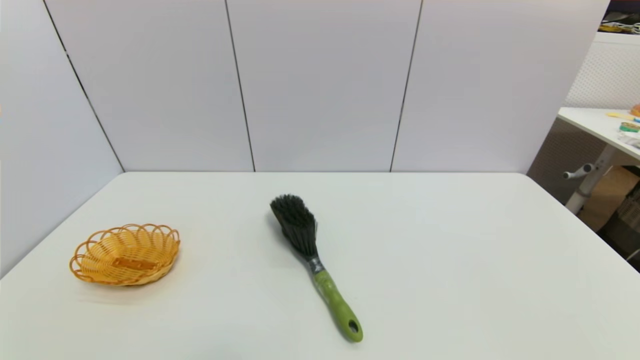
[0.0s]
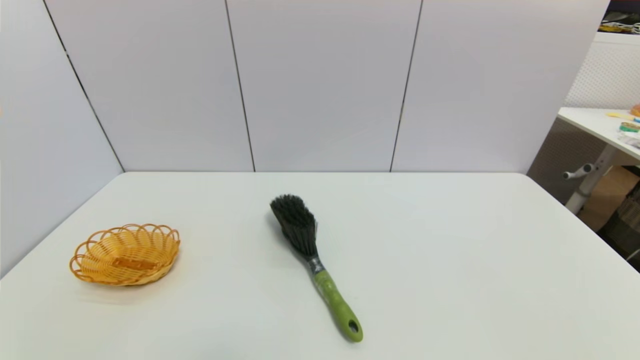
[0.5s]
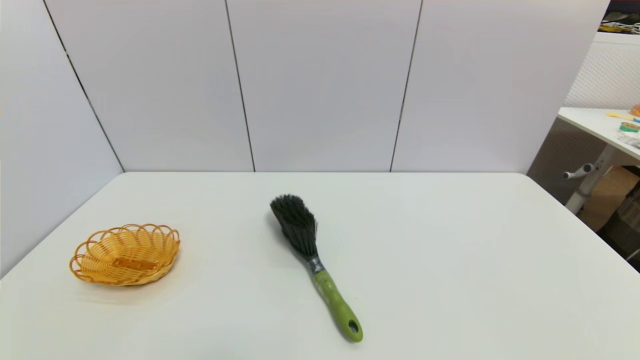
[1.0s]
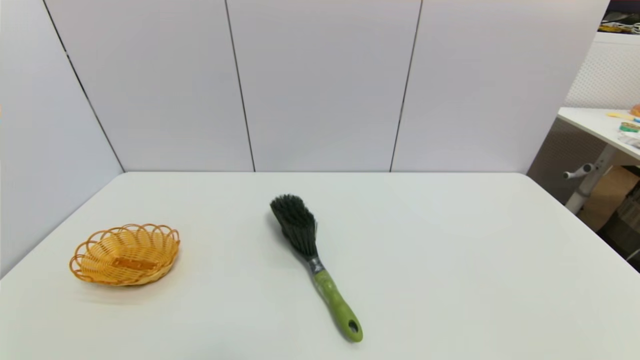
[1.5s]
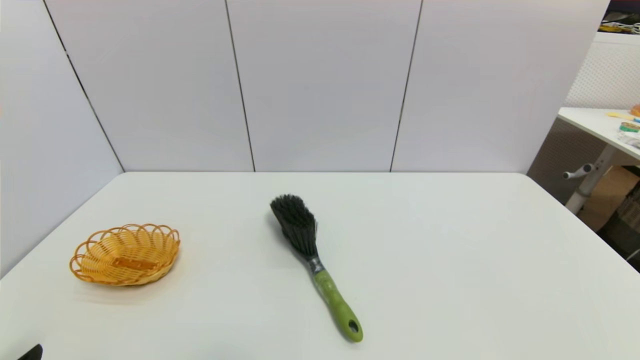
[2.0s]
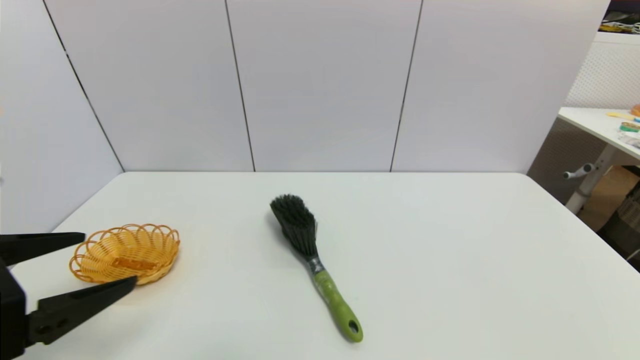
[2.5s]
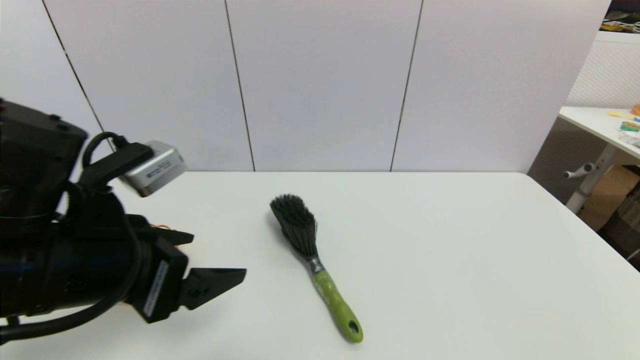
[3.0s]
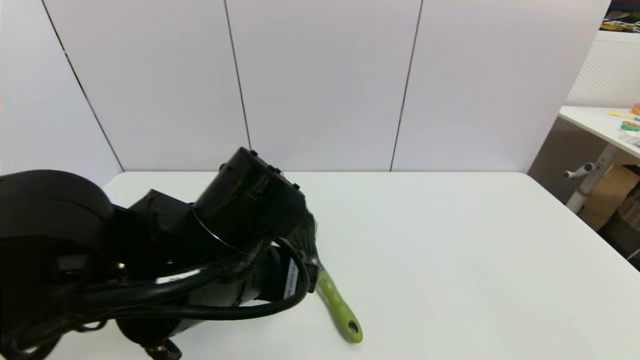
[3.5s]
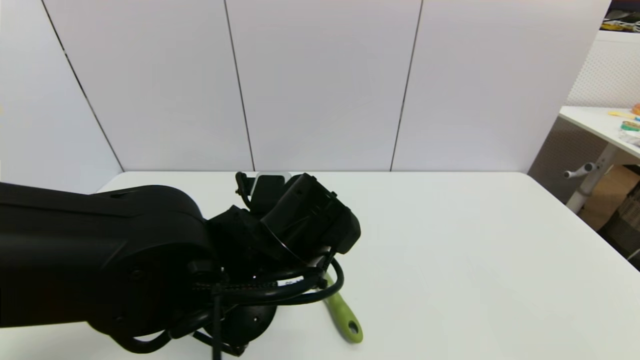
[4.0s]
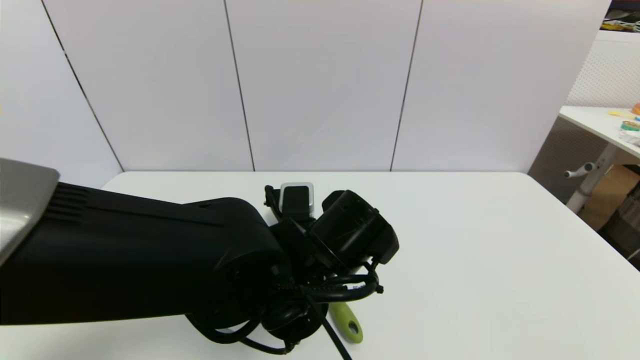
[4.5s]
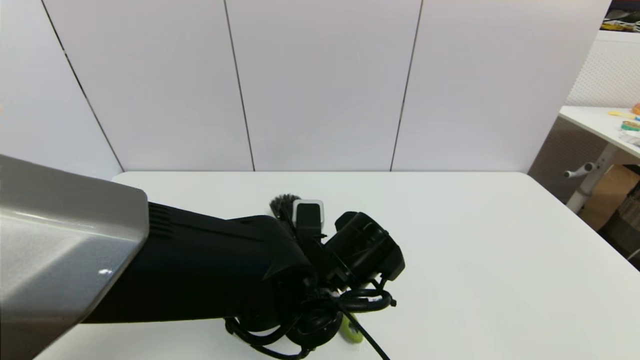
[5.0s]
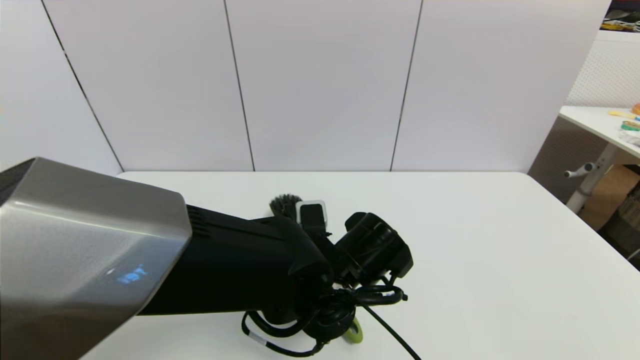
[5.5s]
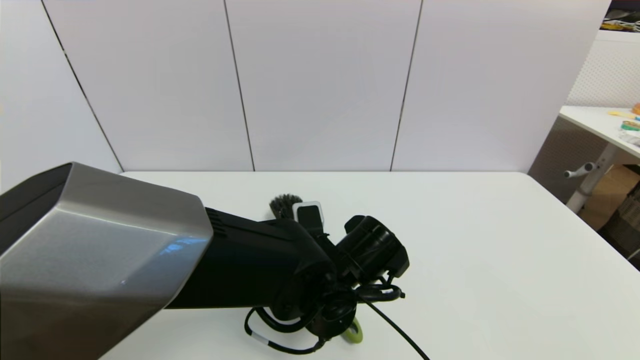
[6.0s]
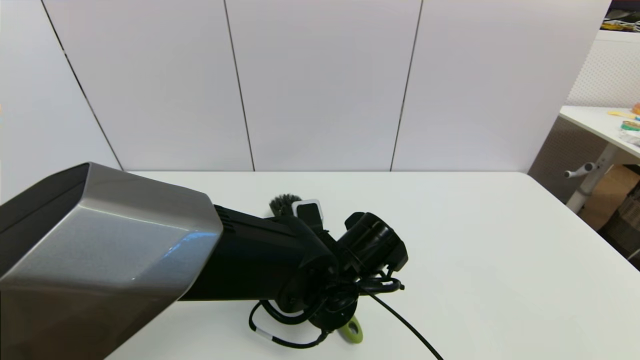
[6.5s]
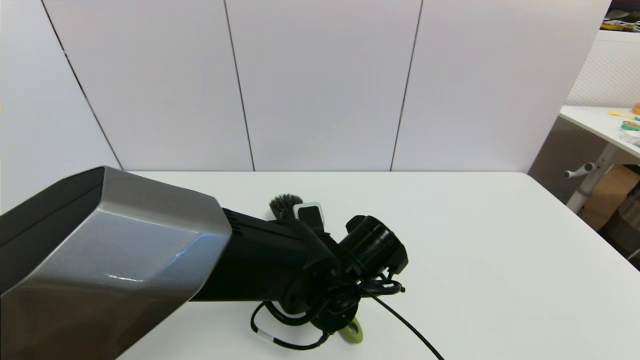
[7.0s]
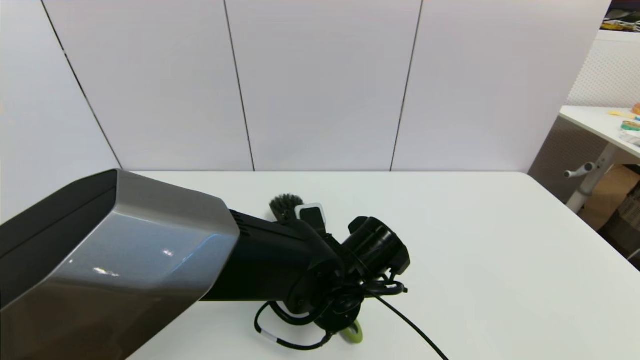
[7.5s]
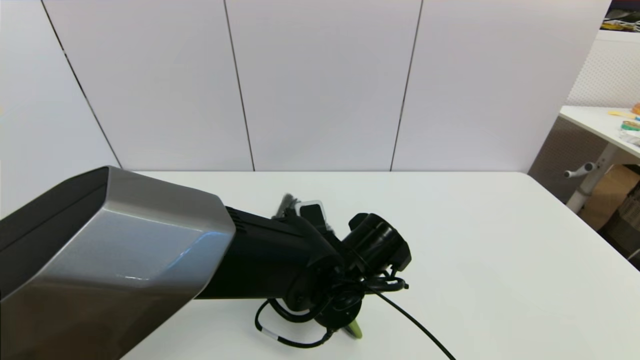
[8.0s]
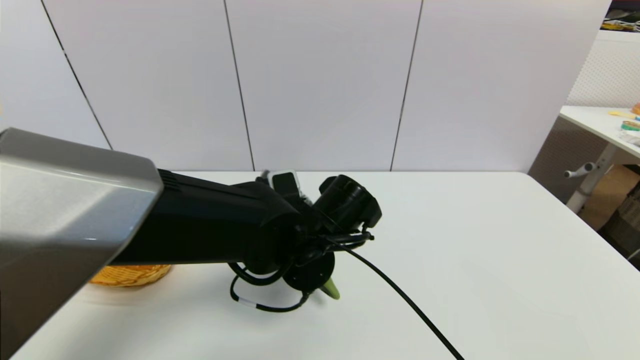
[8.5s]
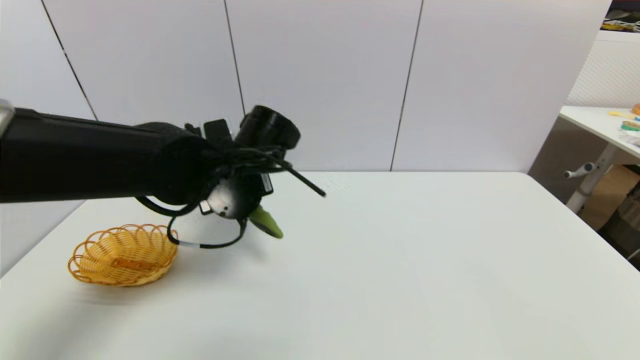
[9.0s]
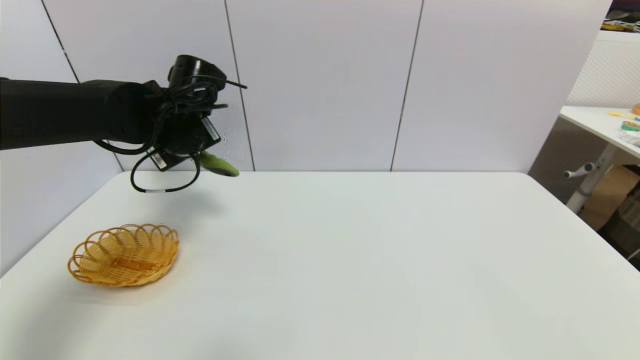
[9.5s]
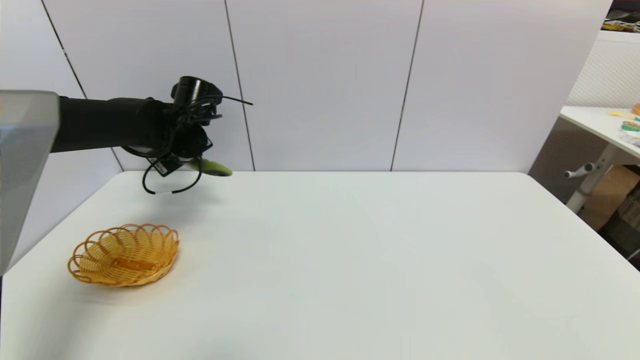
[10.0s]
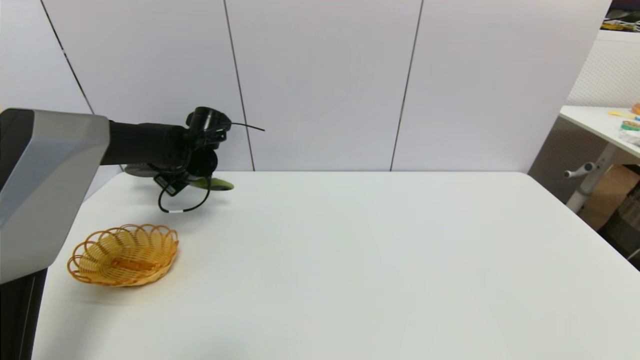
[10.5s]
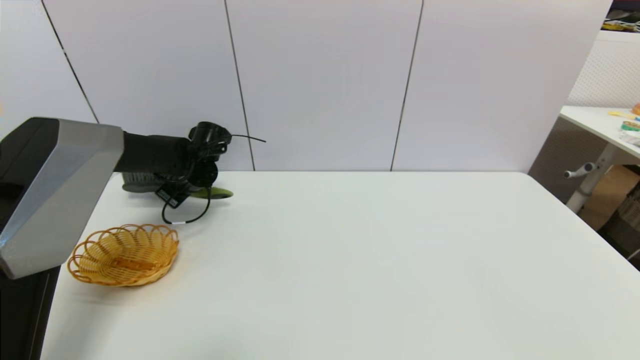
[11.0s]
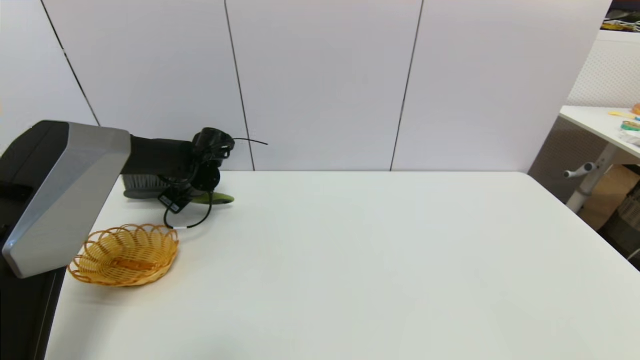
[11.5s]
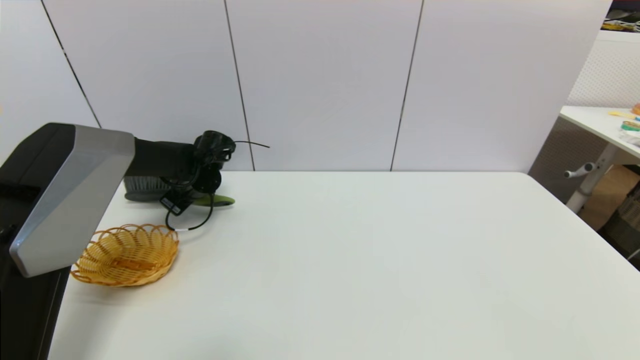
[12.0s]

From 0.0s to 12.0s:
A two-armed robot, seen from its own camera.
Task of the whole recording: put the brush in the designated position.
Step, from 2.0s to 8.0s: Grasp the brush with left gripper.
From 2.0s to 4.0s: The left gripper moves to the right and forward, approximately 30 cm.
From 4.0s to 6.0s: The left gripper travels downward and to the right by roughly 10 cm.
From 6.0s to 8.0s: The left gripper closes.
From 8.0s to 10.0s: The left gripper shifts some 30 cm to the left, forward and upward.
From 10.0s to 12.0s: The left gripper is displaced downward by approximately 10 cm.

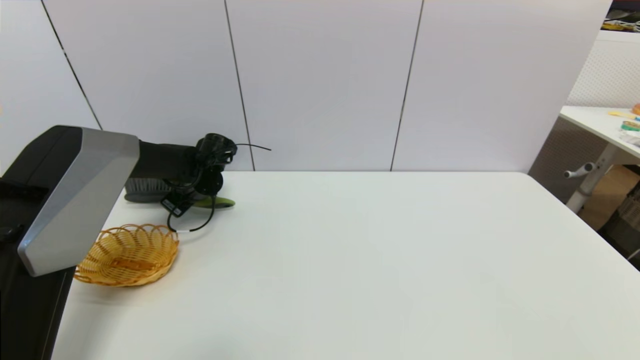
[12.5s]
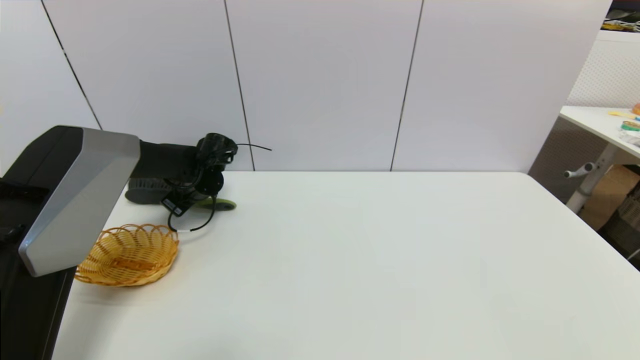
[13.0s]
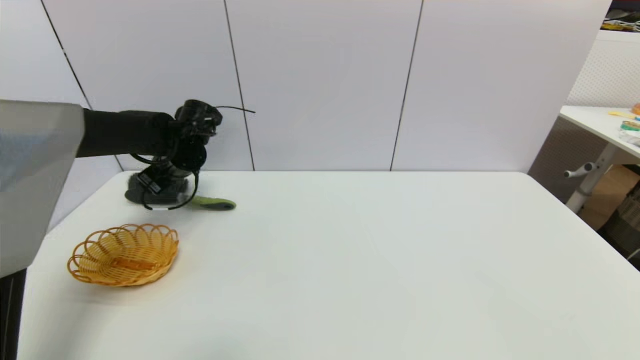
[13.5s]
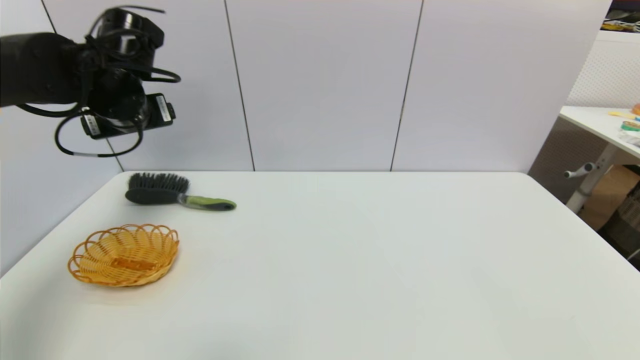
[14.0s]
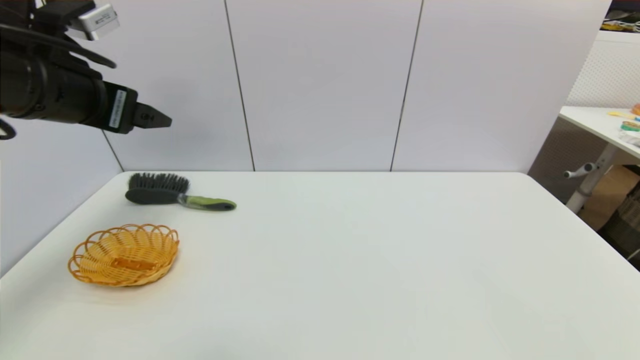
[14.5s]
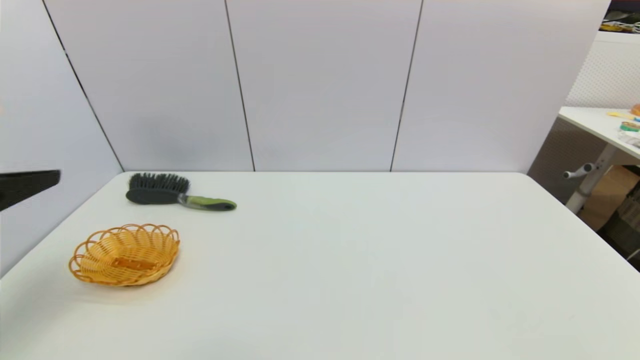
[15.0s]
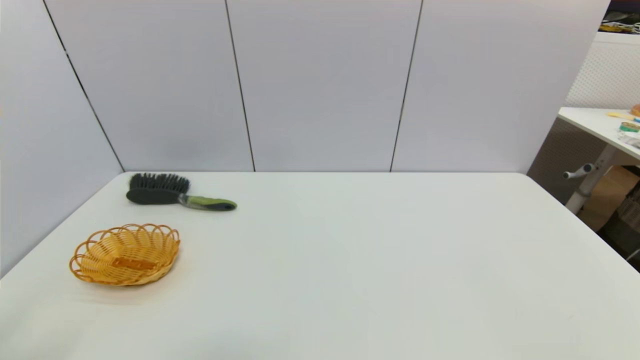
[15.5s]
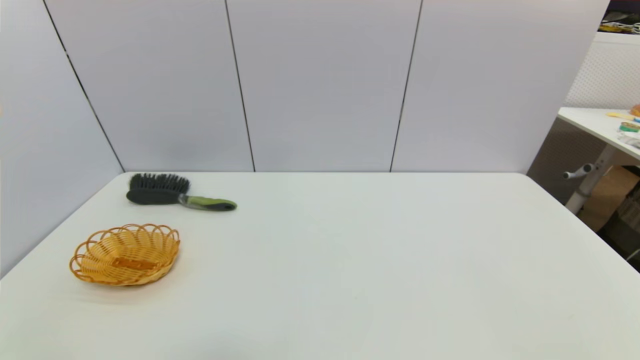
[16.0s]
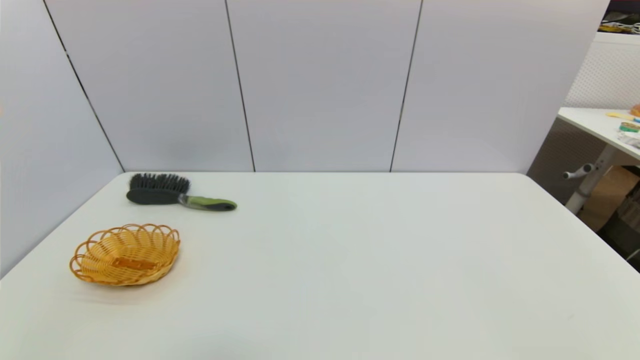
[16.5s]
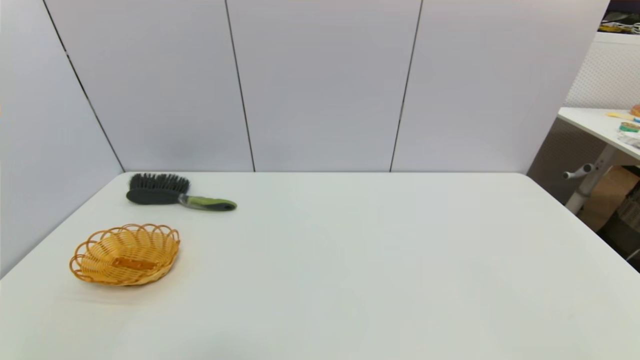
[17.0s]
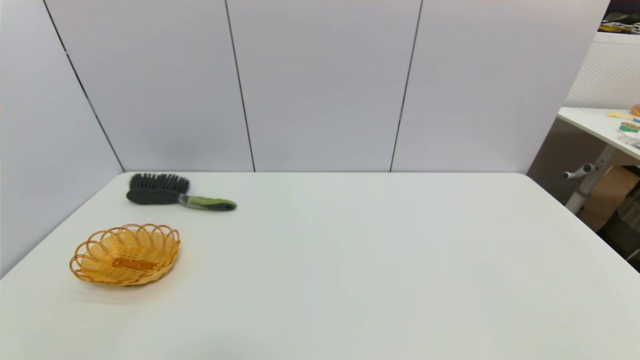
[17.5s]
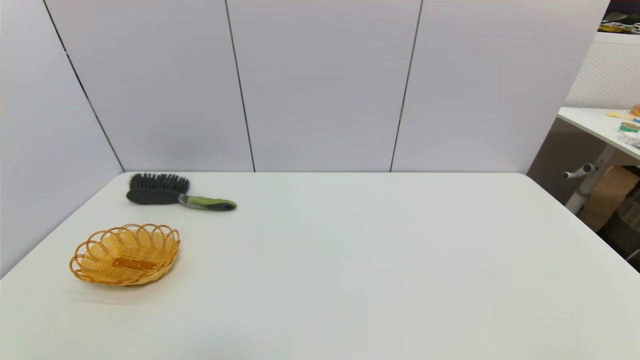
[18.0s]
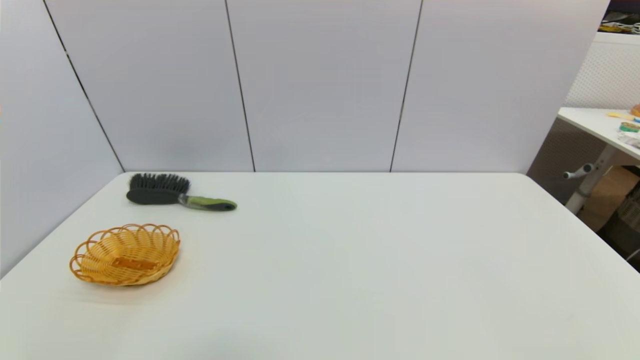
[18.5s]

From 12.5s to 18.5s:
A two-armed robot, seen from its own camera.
Task of the whole recording: put the brush in the designated position.
From 12.5s to 14.5s: The left gripper moves upward and backward, roughly 30 cm, and opens its fingers.
From 14.5s to 16.5s: The left gripper is displaced backward and downward by about 35 cm.
